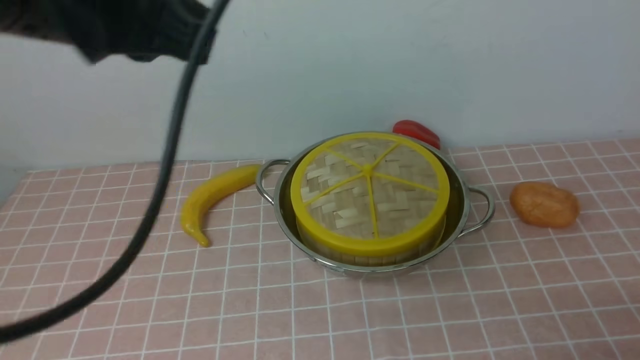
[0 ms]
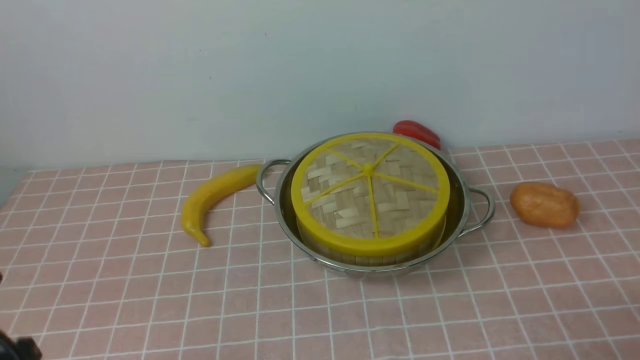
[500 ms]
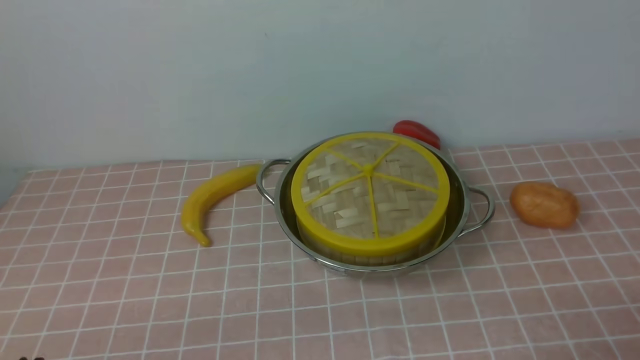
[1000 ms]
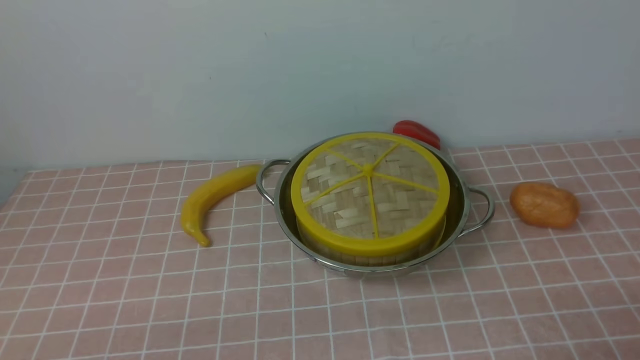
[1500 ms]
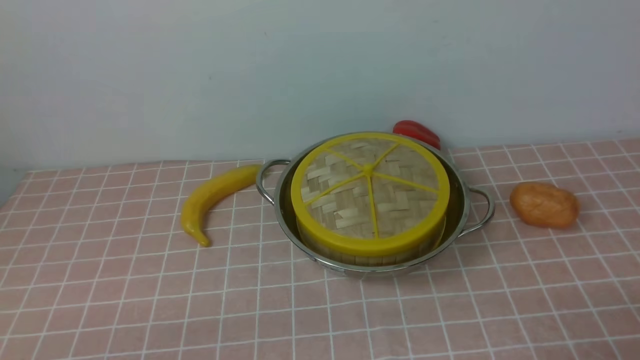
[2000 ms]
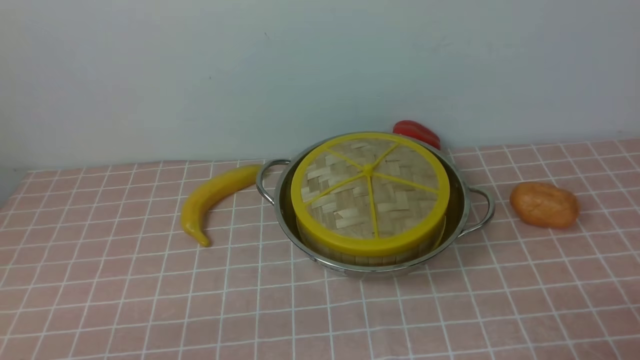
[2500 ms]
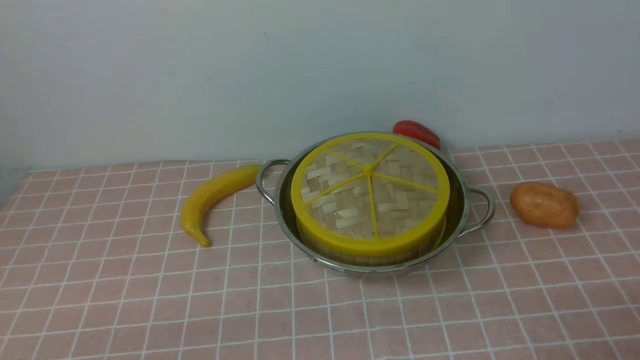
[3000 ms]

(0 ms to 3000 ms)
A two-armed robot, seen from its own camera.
Task of the whole recording: place the steamer in the pot on the pink tablecloth, and put the lid on the steamer.
0 ms - 1500 ms: The left gripper heads downward and backward, covering about 30 cm.
1500 ms - 3000 ms: Neither gripper changes place.

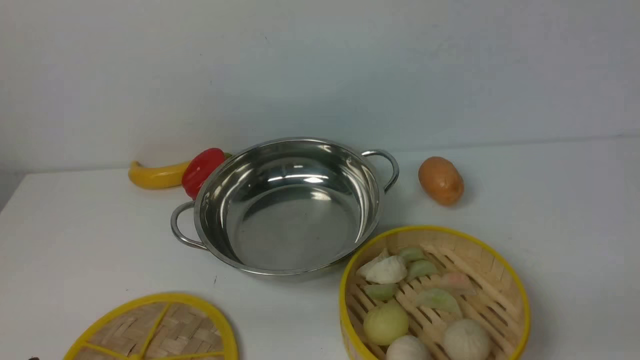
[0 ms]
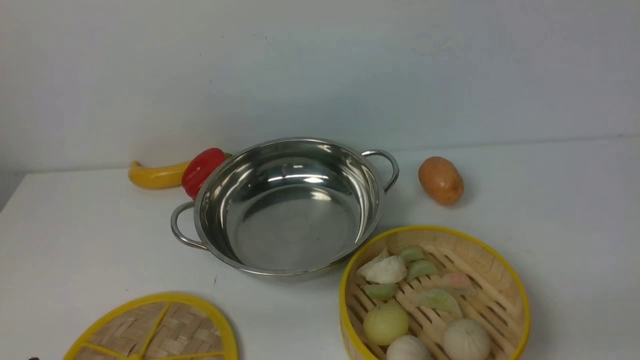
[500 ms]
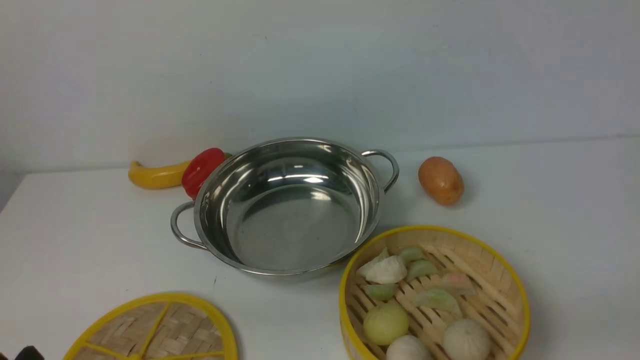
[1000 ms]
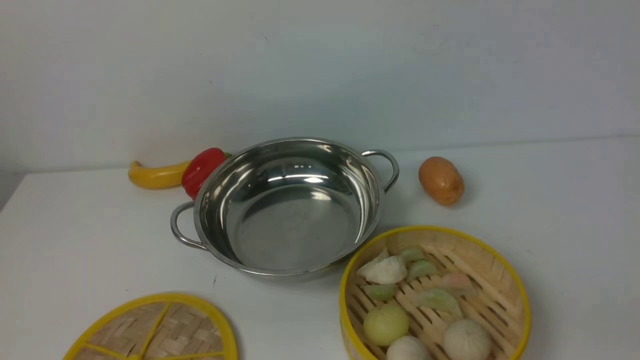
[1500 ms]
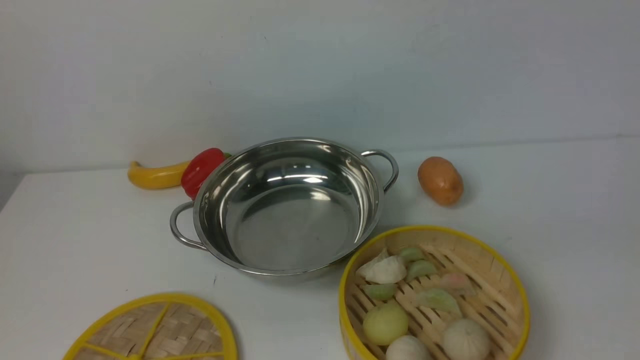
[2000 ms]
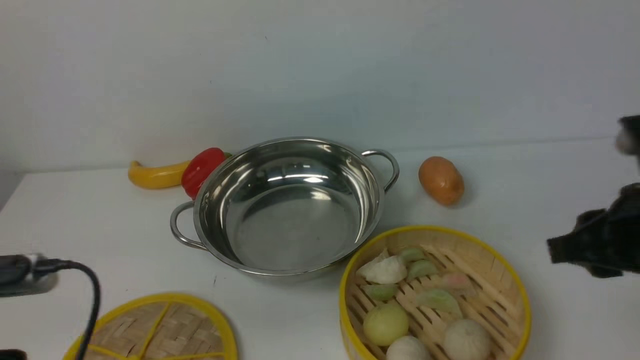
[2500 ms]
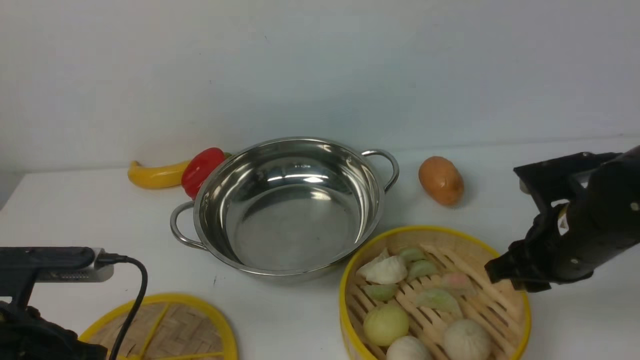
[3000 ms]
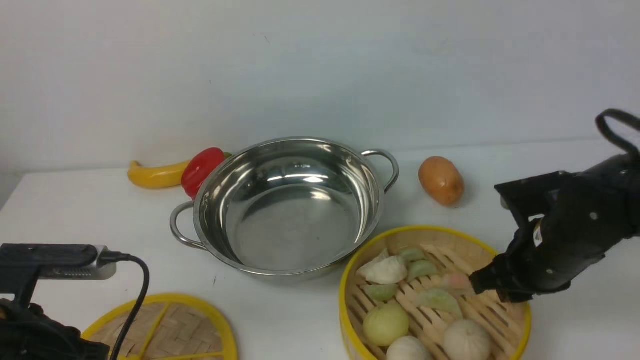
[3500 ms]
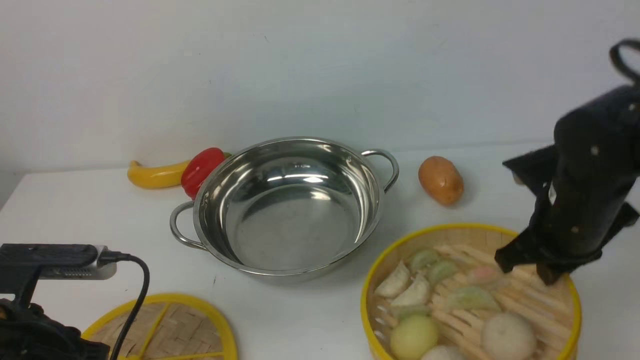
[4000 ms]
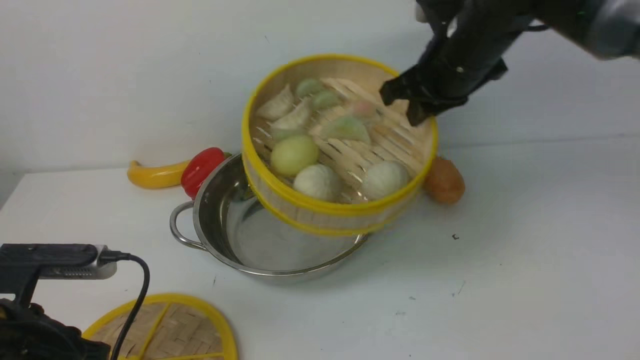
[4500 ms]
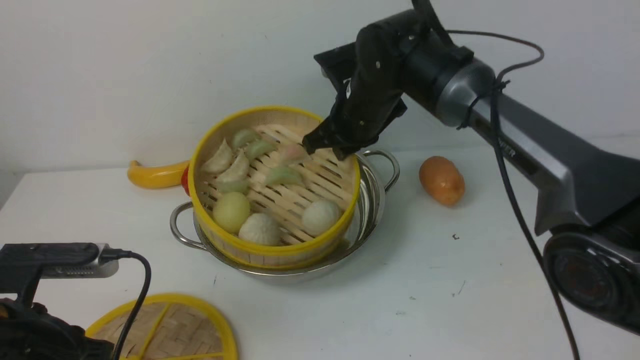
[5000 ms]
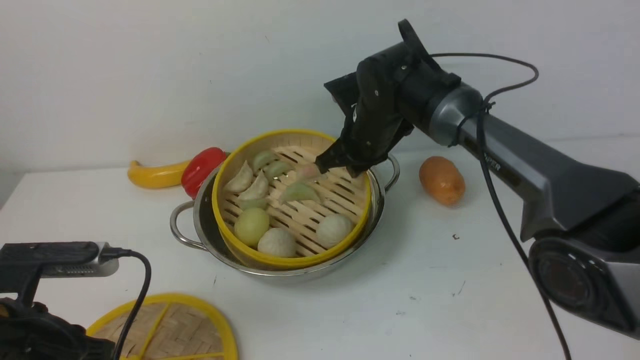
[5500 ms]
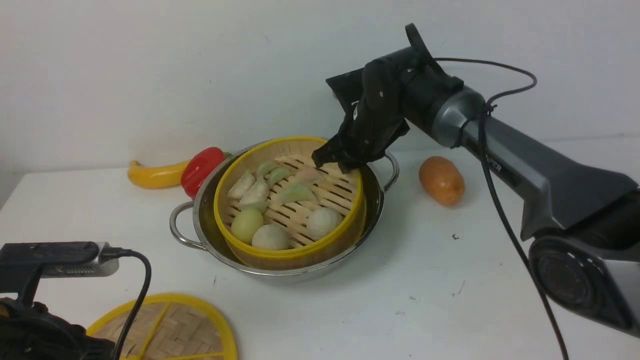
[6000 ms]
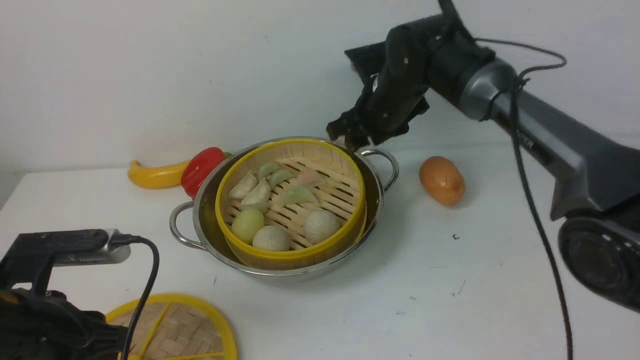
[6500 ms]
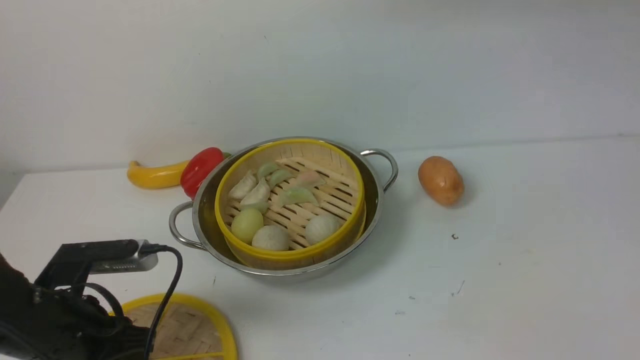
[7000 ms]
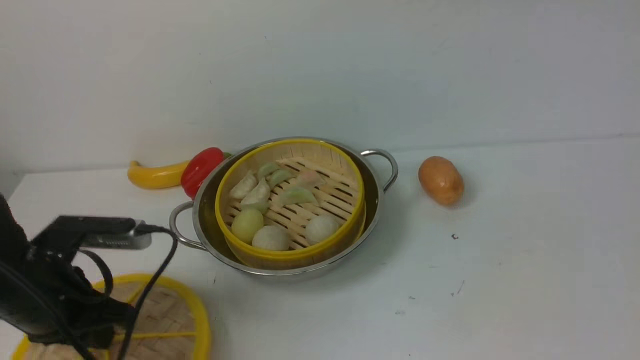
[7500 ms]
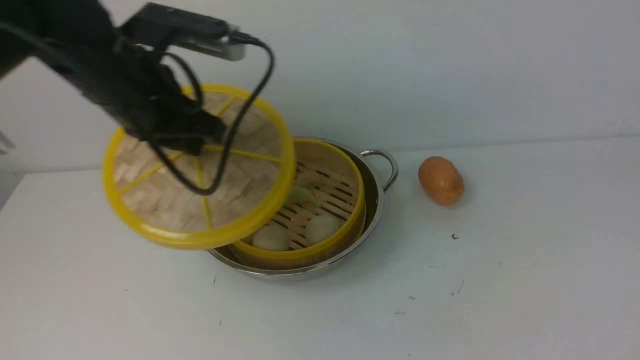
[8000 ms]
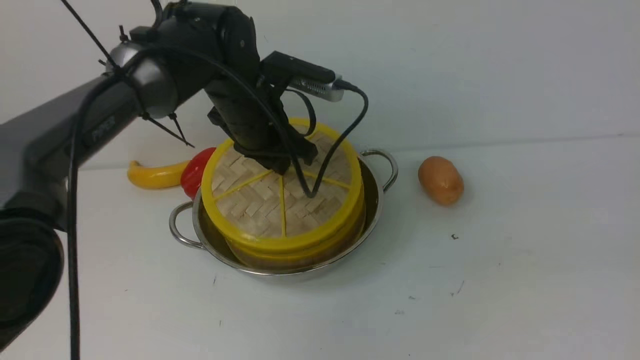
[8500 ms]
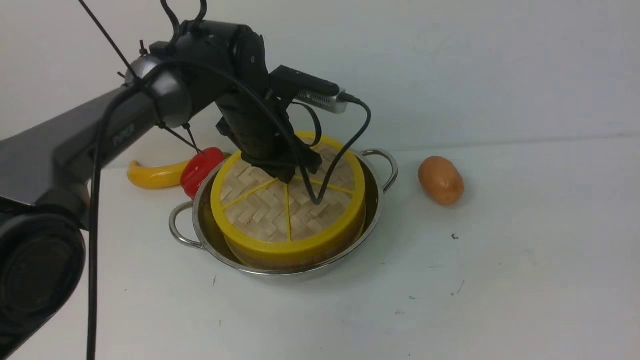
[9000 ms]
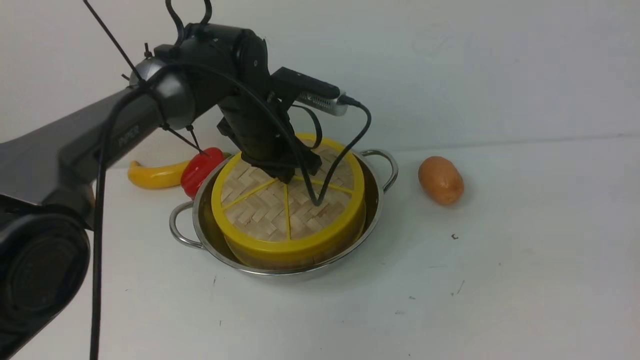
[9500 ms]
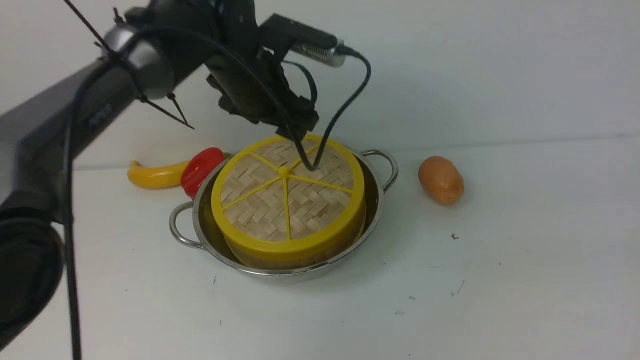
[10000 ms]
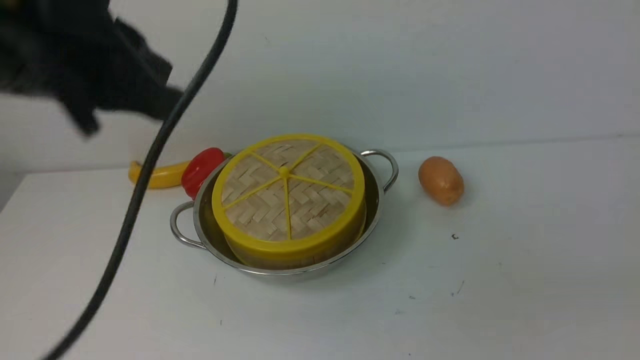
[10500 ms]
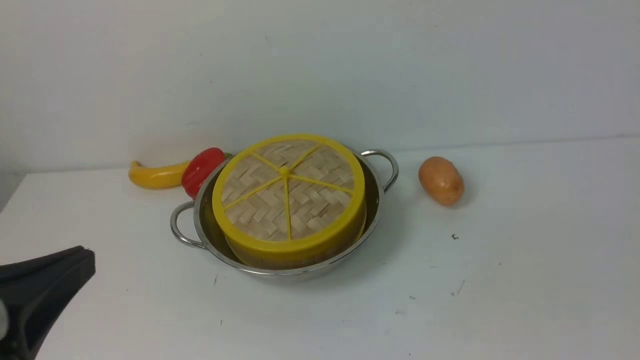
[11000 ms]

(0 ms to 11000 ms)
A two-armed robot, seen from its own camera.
Task of the whole recording: place the steamer in the pot on the white table, and put the lid on the steamer.
Step, 0 ms - 4000 ms: use the right arm to lift the steamer closest to it.
Step, 4500 ms - 6500 ms: use the right arm to put the steamer into the iron steamer pot in the middle.
Step, 7000 ms - 7500 ms: use the left arm to lift the lid of the steamer.
Step, 8000 ms - 10500 ms: use the left arm to place the steamer lid on the steamer.
2000 ms - 3500 ms: The right gripper is displaced forward, downward and to the left by roughly 25 cm; the left gripper is displaced forward by about 15 cm.
3500 ms - 5500 ms: The right gripper travels forward and to the left by about 25 cm, and closes.
5500 ms - 7500 ms: The right gripper heads upward, backward and to the right, covering approximately 40 cm, and opens. The left gripper heads forward, covering roughly 5 cm.
7500 ms - 9000 ms: The right gripper is displaced backward, downward and to the right by some 30 cm. The left gripper shifts roughly 25 cm forward and to the right.
9000 ms - 11000 ms: The right gripper is displaced downward by approximately 5 cm, and closes. Meanwhile the left gripper shifts about 35 cm backward, and opens and closes again.
